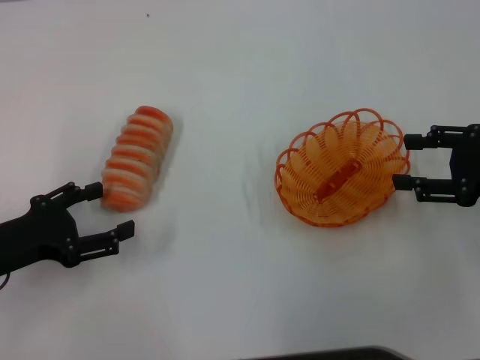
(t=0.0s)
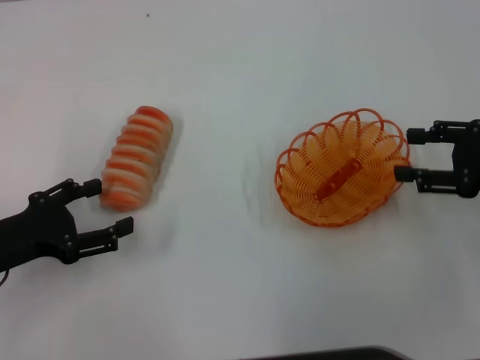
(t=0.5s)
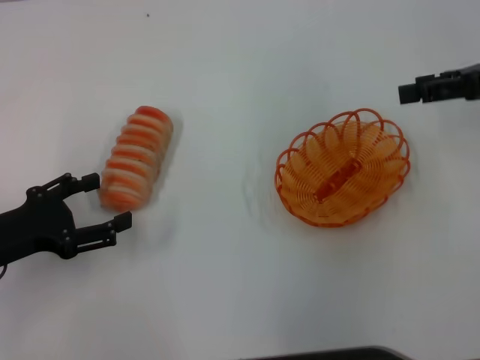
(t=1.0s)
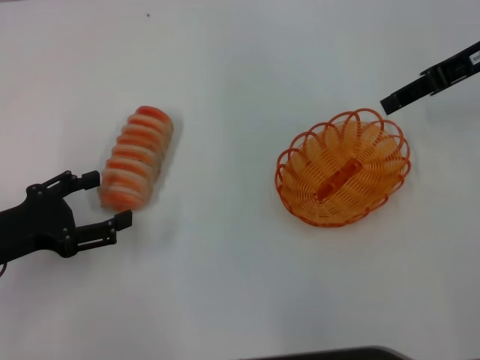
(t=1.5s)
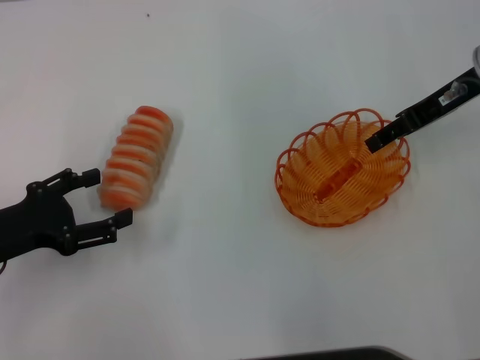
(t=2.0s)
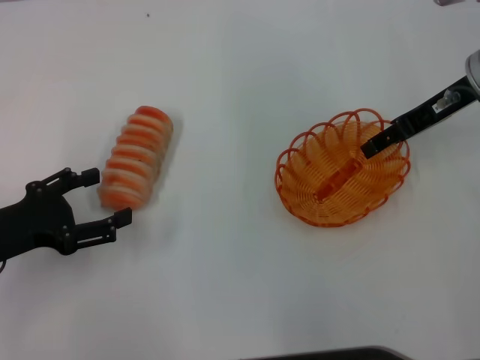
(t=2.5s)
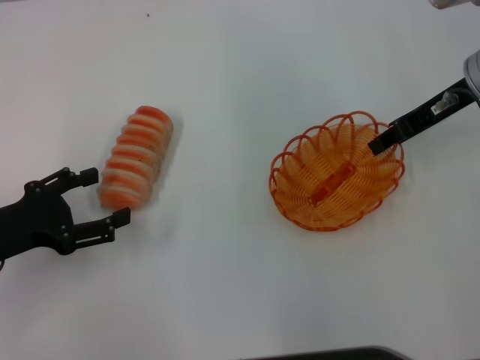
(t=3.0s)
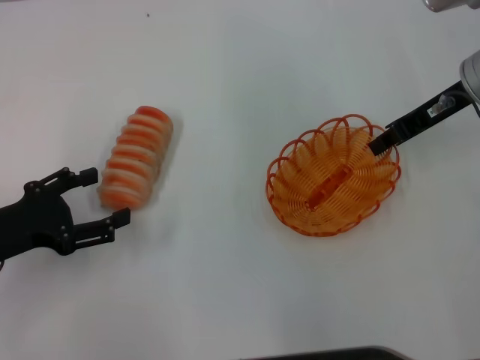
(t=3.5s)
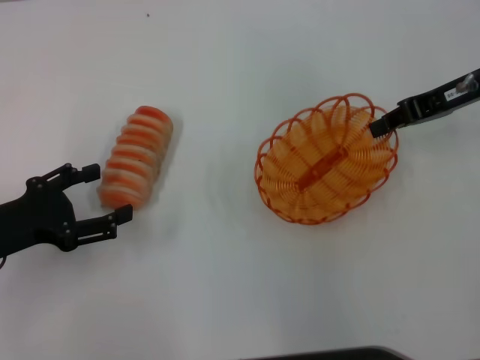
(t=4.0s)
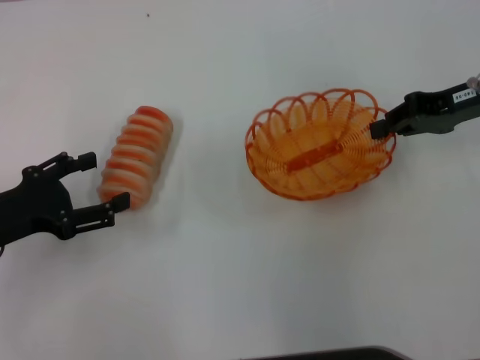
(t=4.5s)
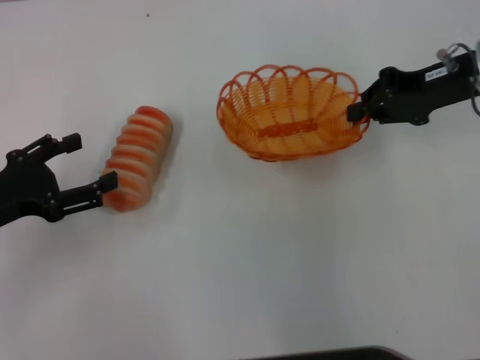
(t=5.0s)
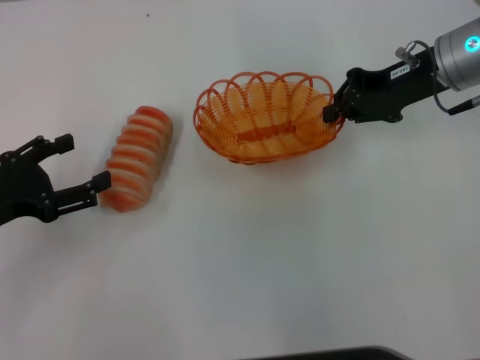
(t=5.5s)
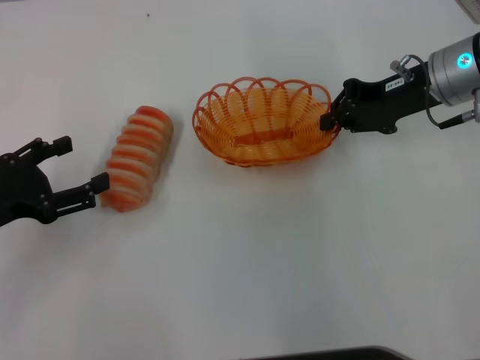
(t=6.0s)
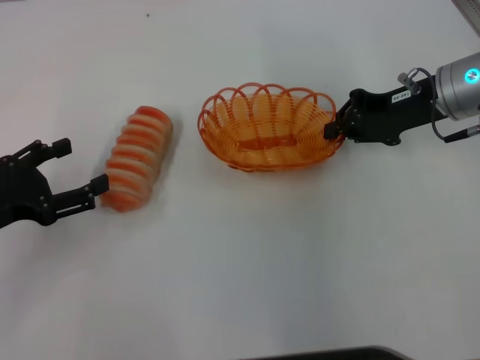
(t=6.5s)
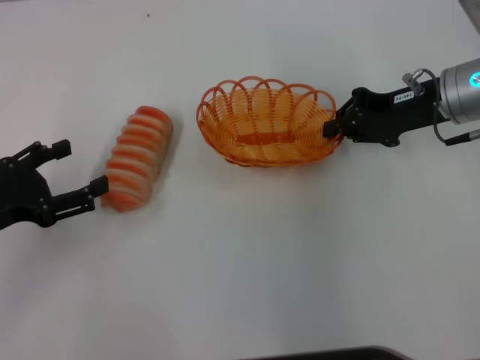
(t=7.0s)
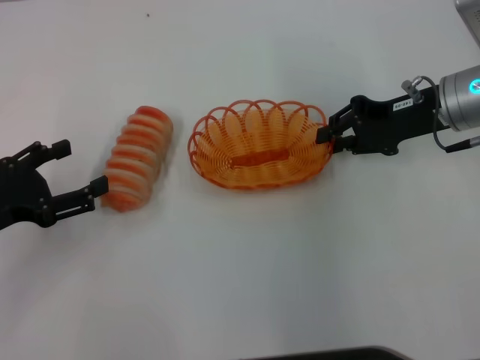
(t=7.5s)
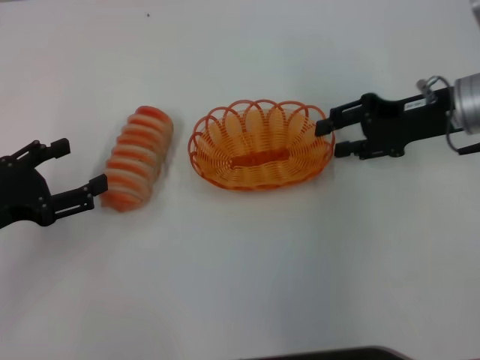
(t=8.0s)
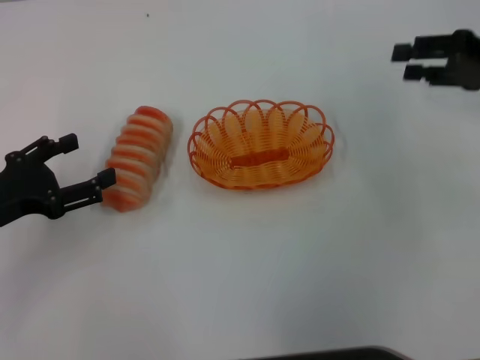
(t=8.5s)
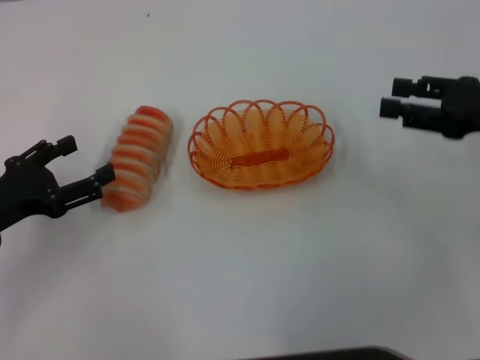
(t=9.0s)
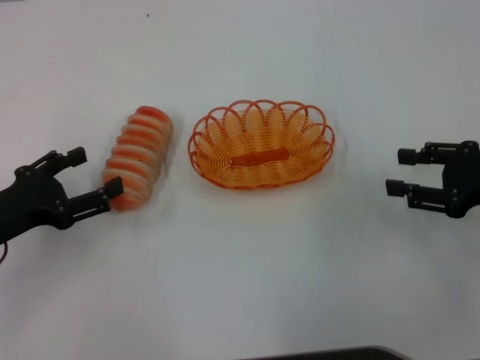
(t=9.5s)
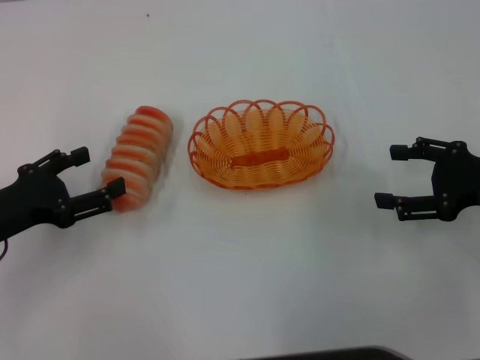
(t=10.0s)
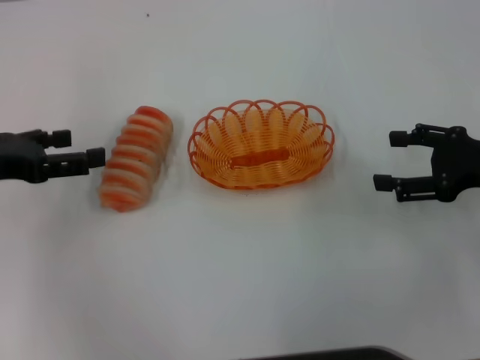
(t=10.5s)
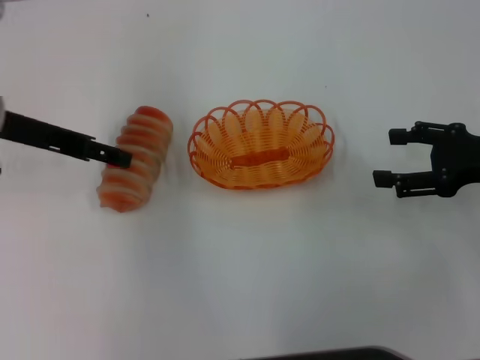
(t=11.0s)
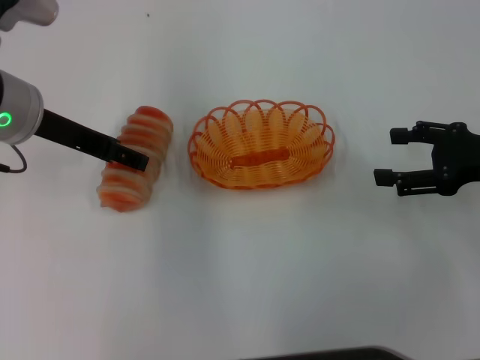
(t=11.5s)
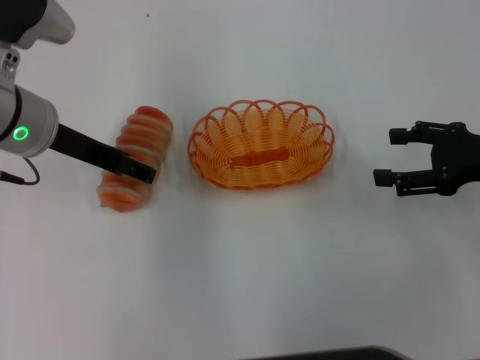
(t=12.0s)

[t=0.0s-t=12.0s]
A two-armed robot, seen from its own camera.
Step, t=0.0s to t=4.5s: Pick up the basket with the right gripper.
Step, t=5.0s to t=8.0s: Place the basket in the center of view with the right gripper.
t=0.0s to t=2.0s: The right gripper moves forward, to the left and upward, roughly 15 cm.
t=2.0s to t=4.0s: The right gripper closes up.
t=4.0s to t=6.0s: The right gripper moves approximately 5 cm.
t=6.0s to t=8.0s: The right gripper opens its fingers.
t=8.0s to t=10.0s: The right gripper is displaced backward and to the right by approximately 10 cm.
t=10.0s to t=12.0s: The left gripper heads to the right, forward and upward, covering about 15 cm.

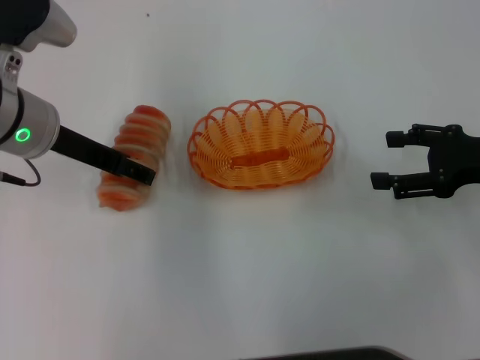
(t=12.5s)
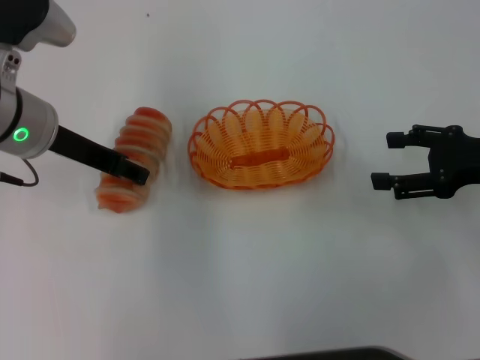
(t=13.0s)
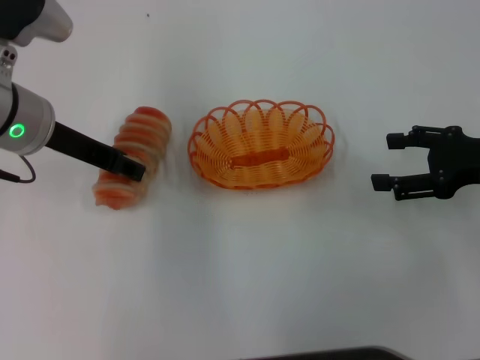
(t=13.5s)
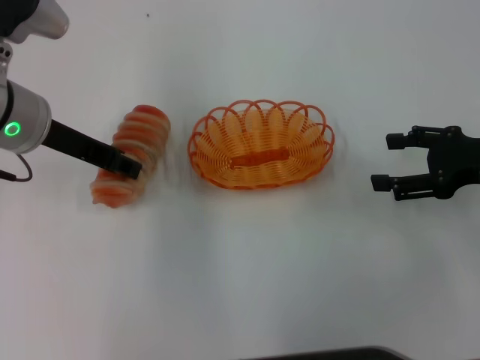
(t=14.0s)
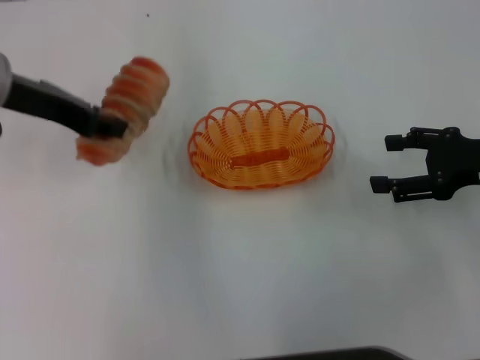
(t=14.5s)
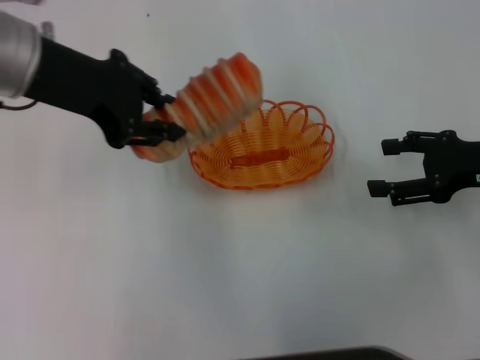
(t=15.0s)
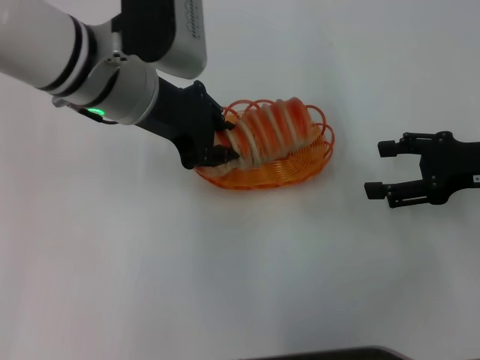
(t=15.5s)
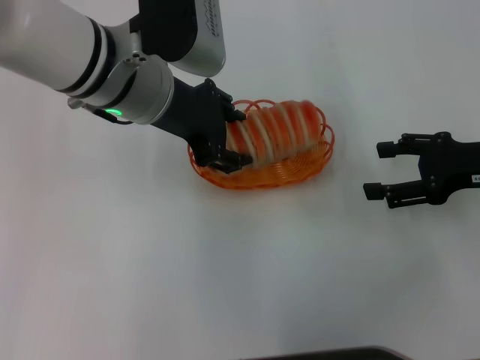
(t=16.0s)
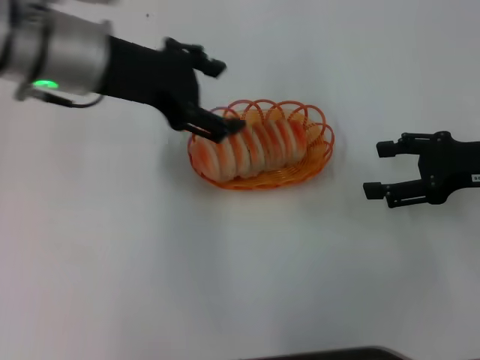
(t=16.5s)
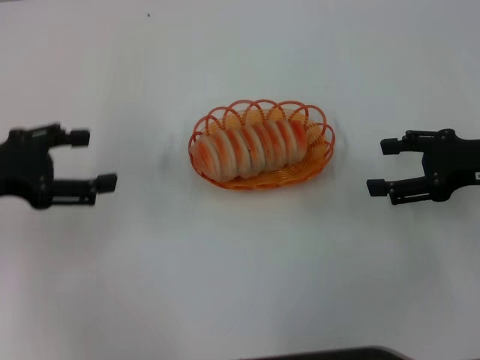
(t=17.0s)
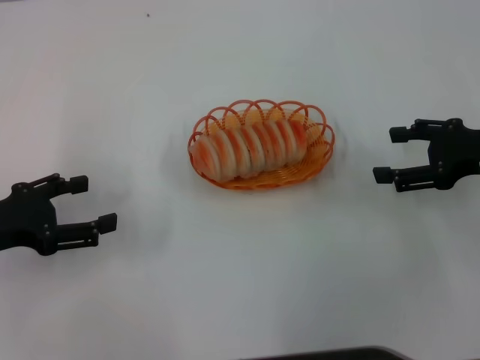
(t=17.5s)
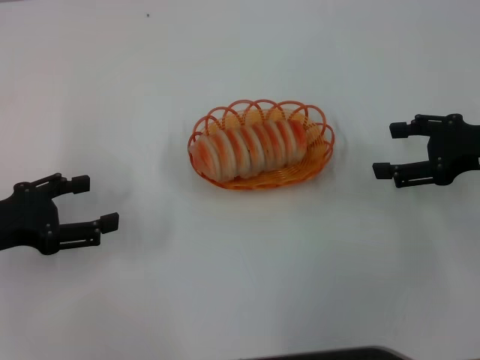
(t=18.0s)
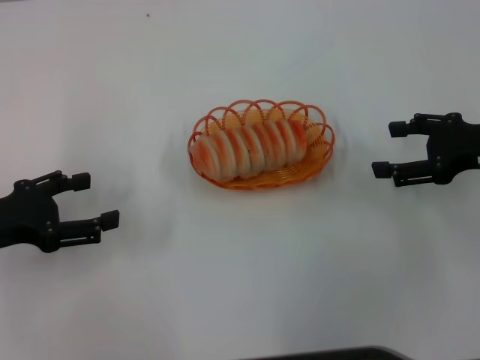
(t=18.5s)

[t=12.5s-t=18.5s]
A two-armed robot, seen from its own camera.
Step, t=14.5s to t=16.5s: Place the long bread into the basket with the left gripper.
t=12.5s to t=14.5s: The left gripper moves roughly 5 cm, and closes its fingers.
t=14.5s to t=16.5s: The left gripper heads to the right, covering roughly 5 cm, and opens.
t=16.5s to t=18.5s: The left gripper heads to the left, downward and backward, covering some 20 cm.
